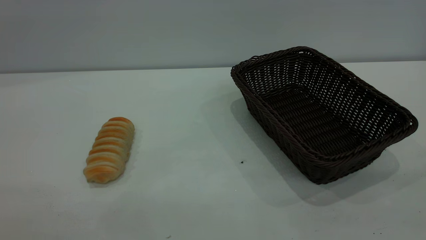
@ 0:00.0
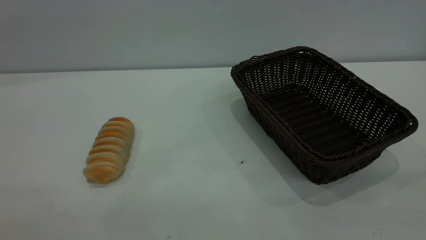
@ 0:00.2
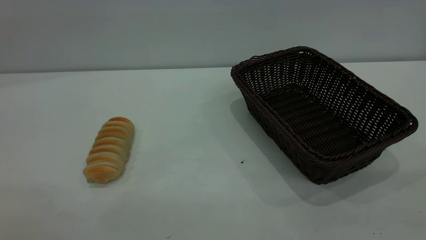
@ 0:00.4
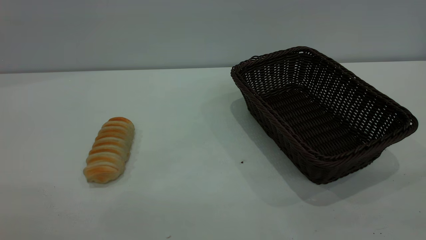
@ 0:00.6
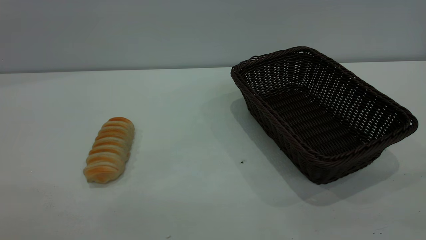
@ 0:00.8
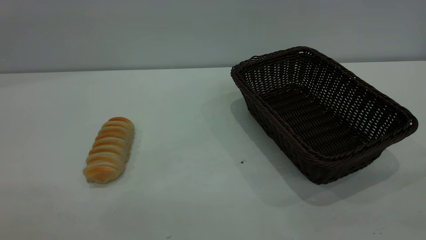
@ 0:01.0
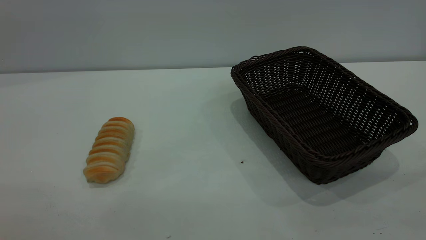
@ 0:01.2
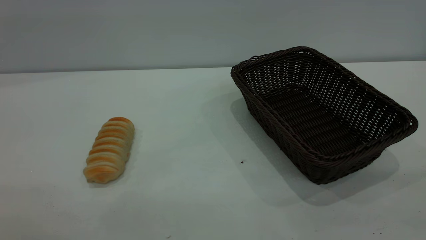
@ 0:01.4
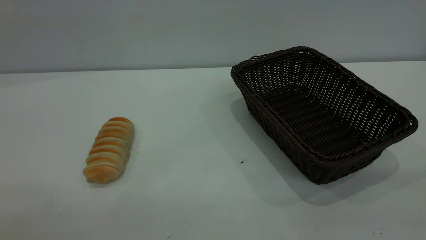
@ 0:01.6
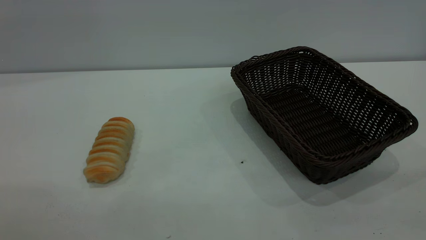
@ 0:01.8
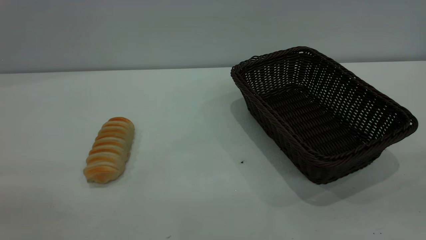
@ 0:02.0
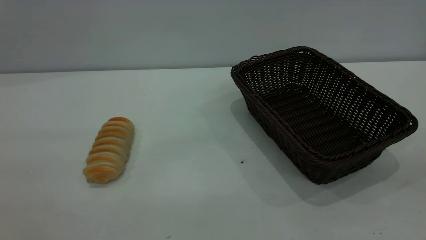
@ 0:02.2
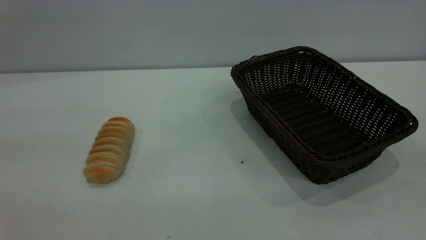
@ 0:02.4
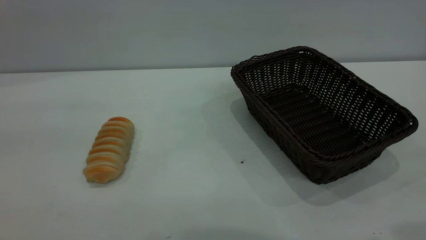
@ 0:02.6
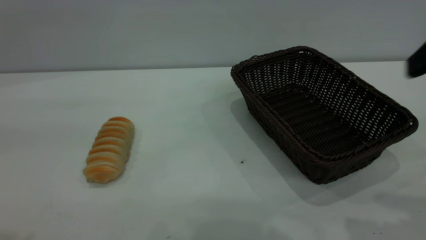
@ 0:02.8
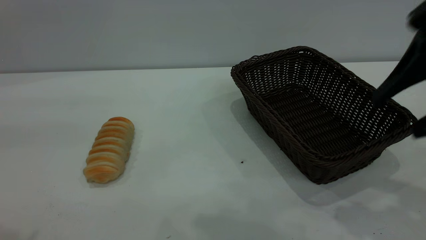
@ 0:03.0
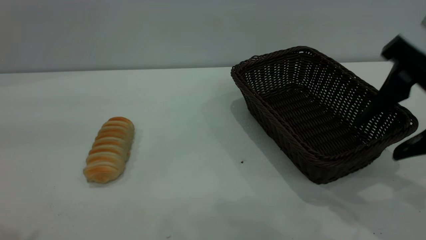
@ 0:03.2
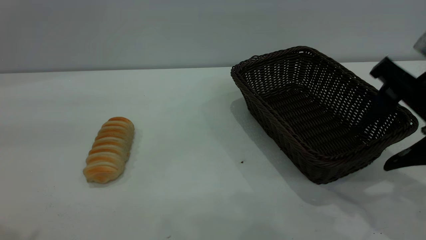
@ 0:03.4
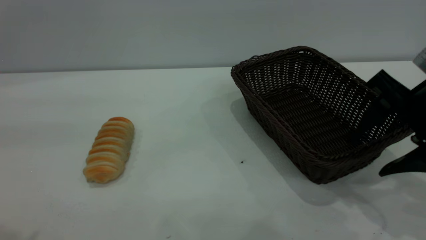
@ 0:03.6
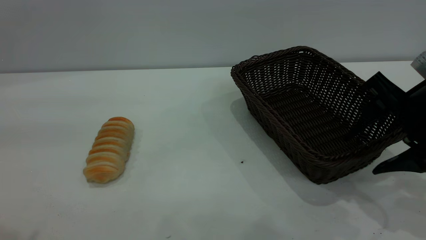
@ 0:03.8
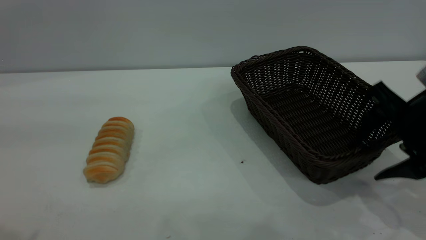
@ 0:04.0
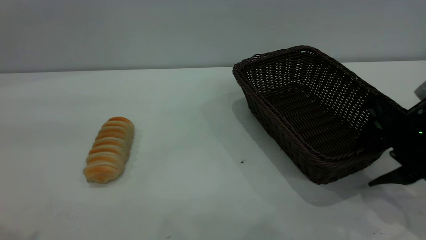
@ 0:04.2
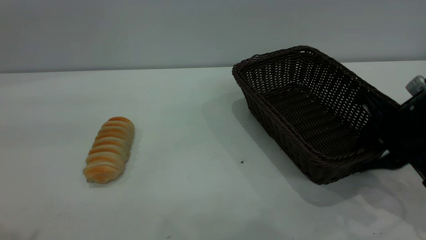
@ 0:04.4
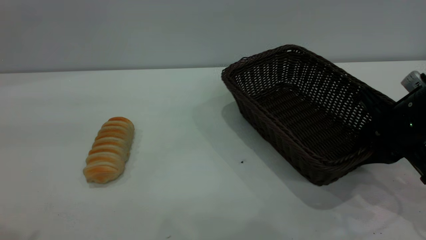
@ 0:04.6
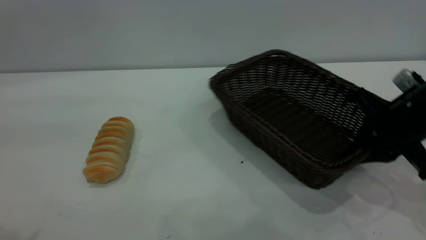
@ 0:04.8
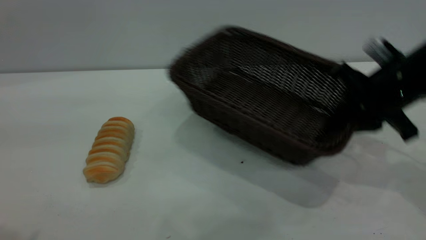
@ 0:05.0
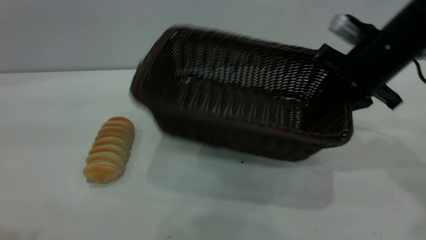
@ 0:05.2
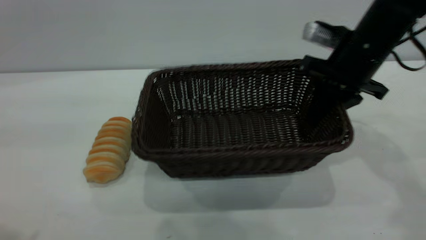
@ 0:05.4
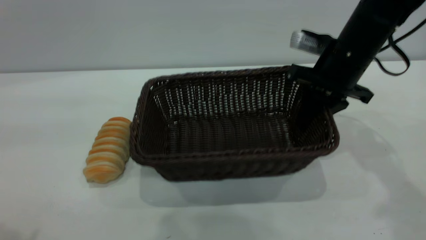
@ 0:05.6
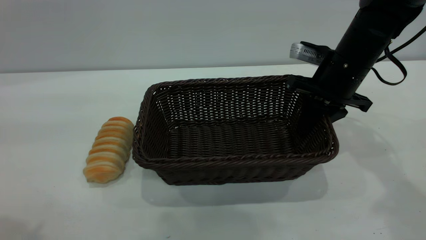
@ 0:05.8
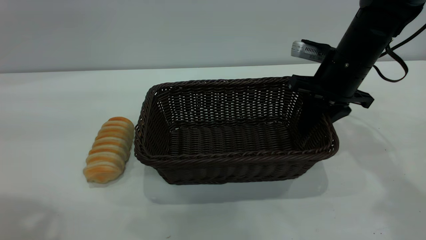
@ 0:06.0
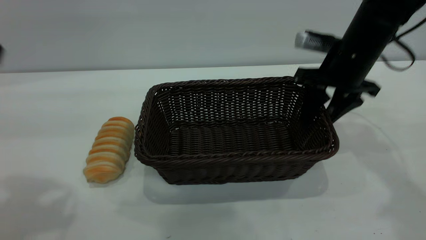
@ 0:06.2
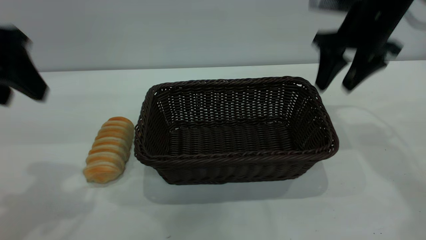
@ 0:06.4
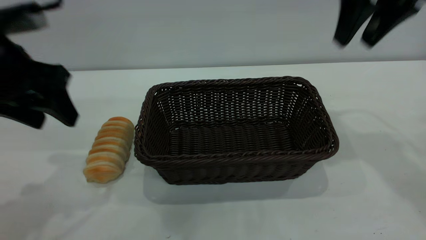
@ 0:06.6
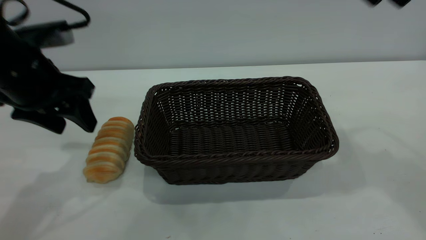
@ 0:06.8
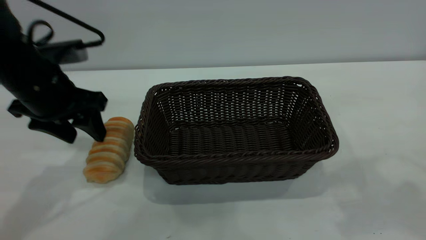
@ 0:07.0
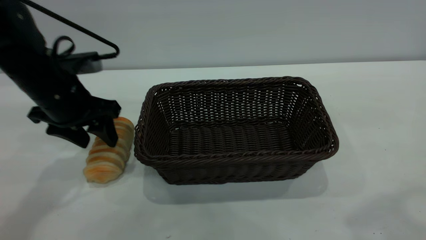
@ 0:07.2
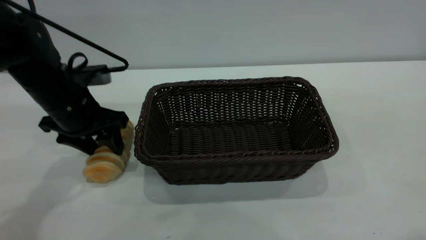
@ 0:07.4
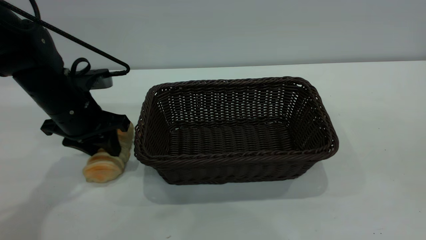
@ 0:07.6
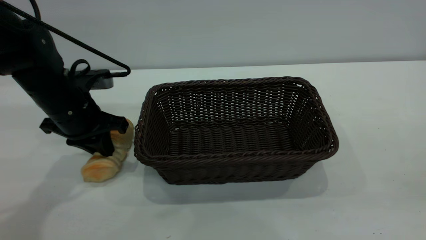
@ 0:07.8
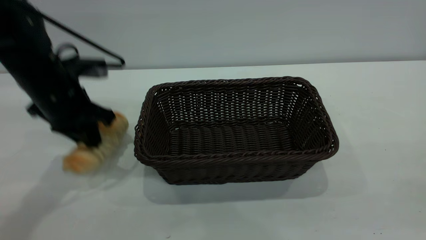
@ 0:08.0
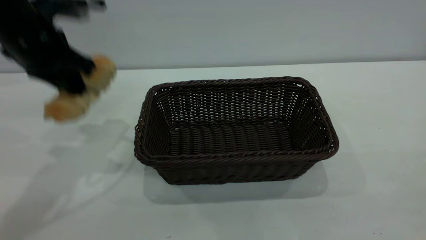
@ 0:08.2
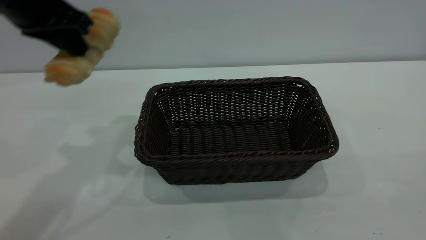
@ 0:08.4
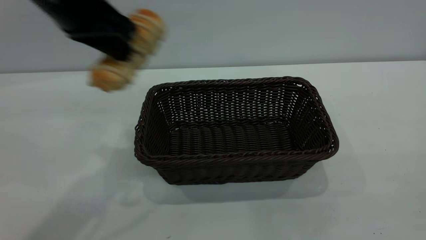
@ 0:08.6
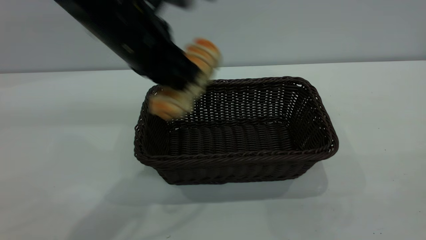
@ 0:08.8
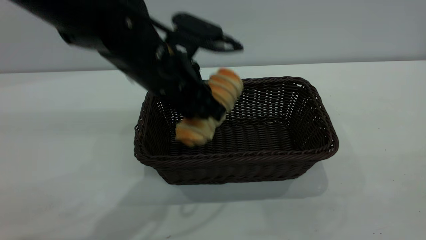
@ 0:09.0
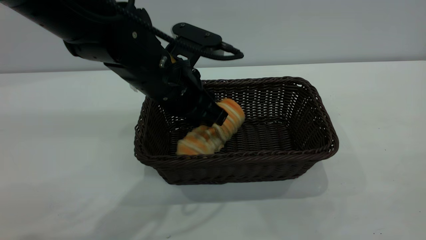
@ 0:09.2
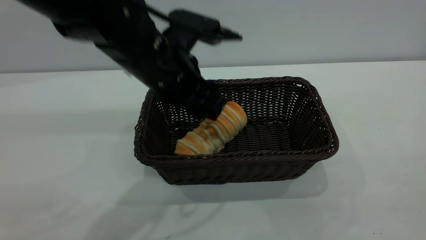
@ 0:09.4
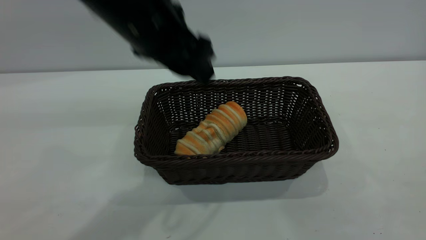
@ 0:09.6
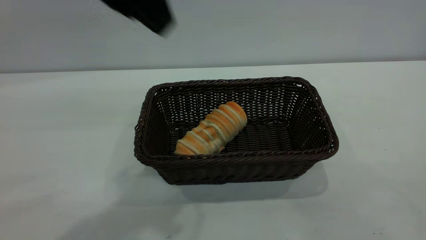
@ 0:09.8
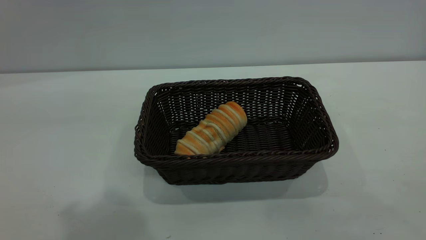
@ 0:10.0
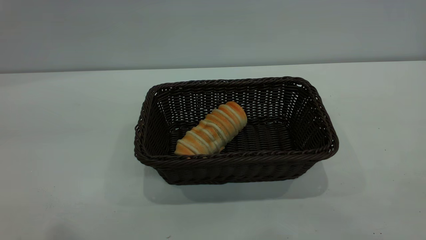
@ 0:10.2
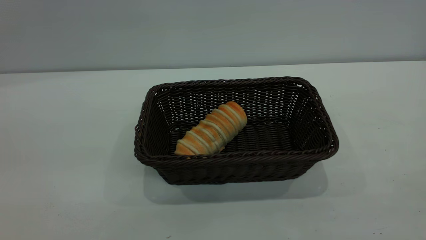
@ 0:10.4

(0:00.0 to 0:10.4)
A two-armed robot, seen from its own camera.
Task of the whole recording: One hand grasps the black basket and places it in the middle of the table, while the other hand picks up the long bread and puts it into the black basket.
Step, 0:00.0 - 0:06.4: Move the basket to the center of view.
Step, 0:08.4 - 0:09.6: place the bread into the basket.
0:00.0 - 0:01.4: Both grippers stay about where they are.
0:01.4 - 0:03.0: The right gripper shifts some 25 cm forward, and opens.
0:03.0 - 0:04.4: The right gripper moves downward and forward, some 15 cm, and closes up.
0:04.4 - 0:06.0: The left gripper shifts approximately 5 cm forward, while the right gripper heads forward and to the left, covering some 15 cm.
0:06.0 - 0:07.4: The right gripper travels backward and upward by some 40 cm, and opens its fingers, while the left gripper is displaced downward and forward by about 30 cm.
0:07.4 - 0:09.0: The left gripper is displaced to the right by approximately 15 cm, travels upward and back again, roughly 20 cm each way, and closes its fingers; the right gripper travels backward and downward by approximately 15 cm.
0:09.0 - 0:10.4: The left gripper heads upward, backward and to the left, covering about 35 cm, and opens its fingers.

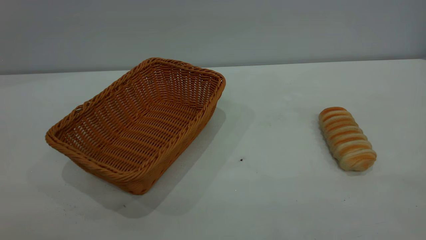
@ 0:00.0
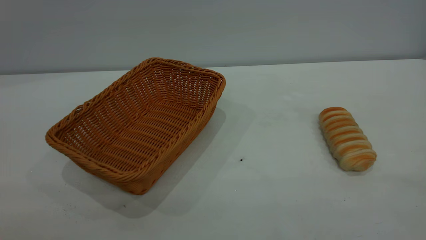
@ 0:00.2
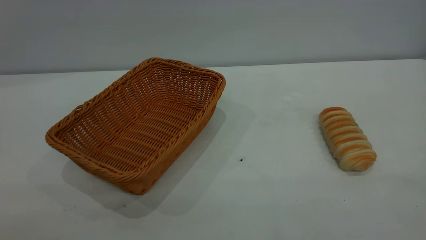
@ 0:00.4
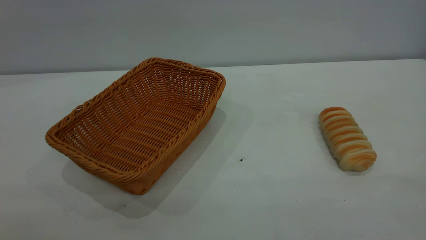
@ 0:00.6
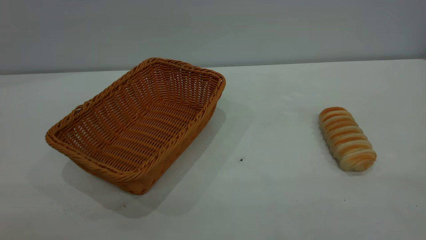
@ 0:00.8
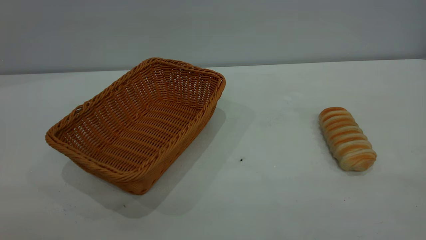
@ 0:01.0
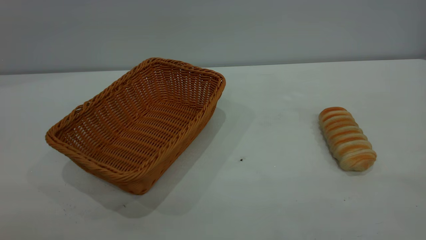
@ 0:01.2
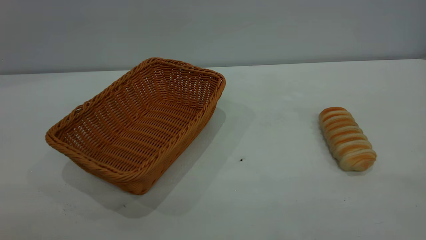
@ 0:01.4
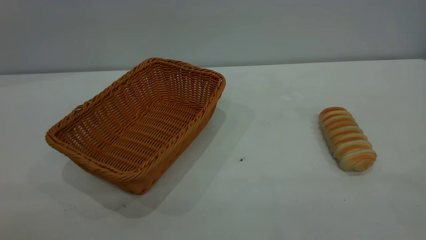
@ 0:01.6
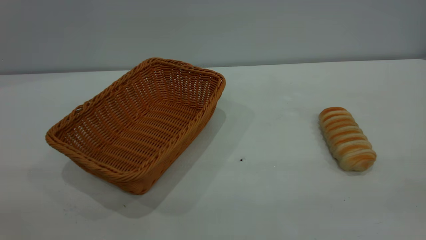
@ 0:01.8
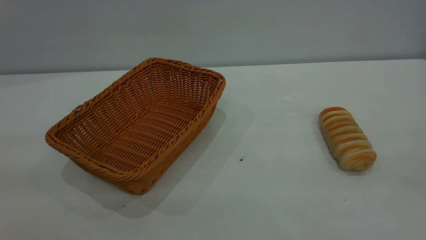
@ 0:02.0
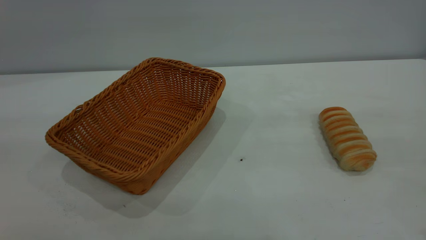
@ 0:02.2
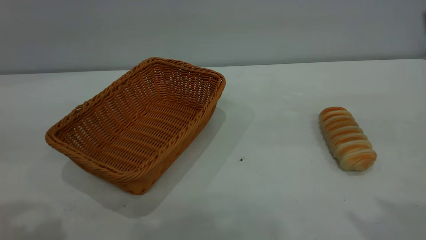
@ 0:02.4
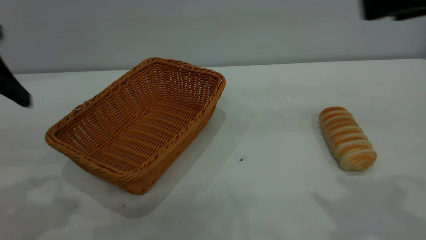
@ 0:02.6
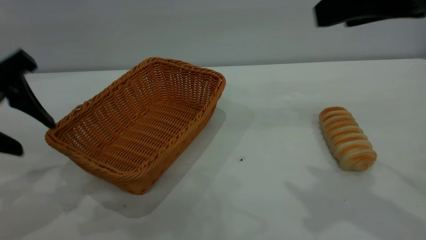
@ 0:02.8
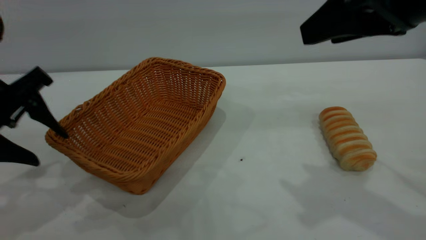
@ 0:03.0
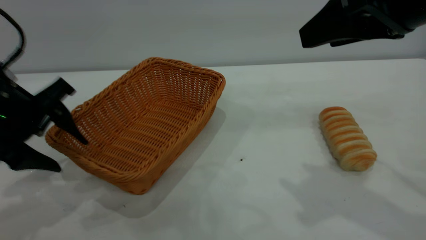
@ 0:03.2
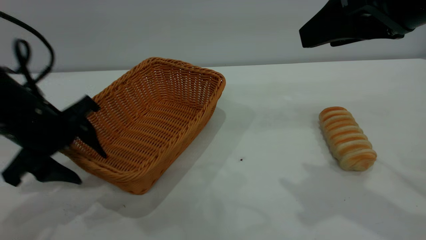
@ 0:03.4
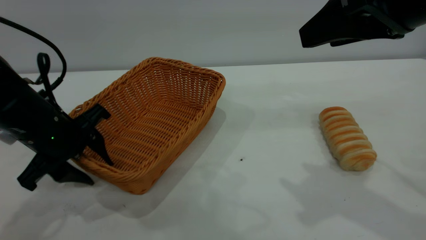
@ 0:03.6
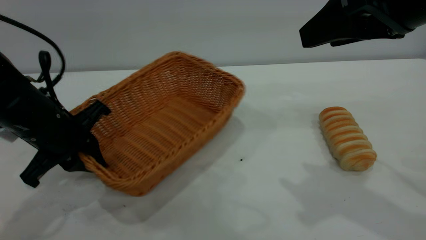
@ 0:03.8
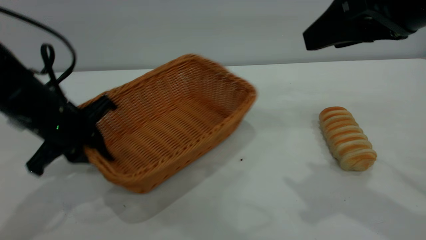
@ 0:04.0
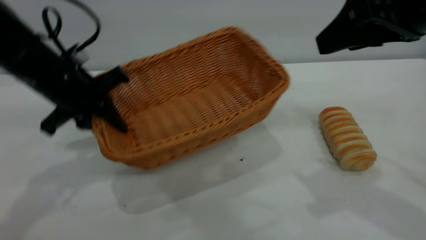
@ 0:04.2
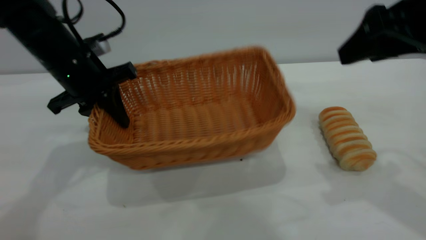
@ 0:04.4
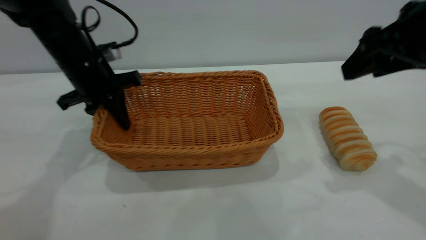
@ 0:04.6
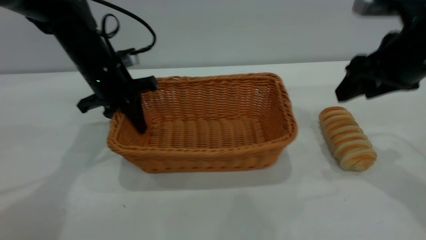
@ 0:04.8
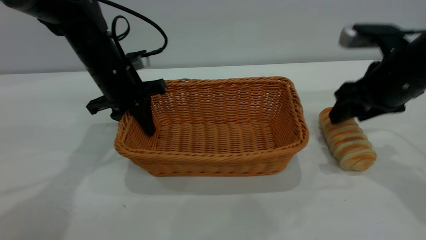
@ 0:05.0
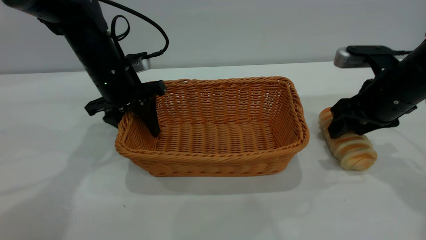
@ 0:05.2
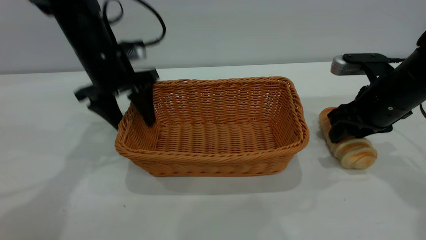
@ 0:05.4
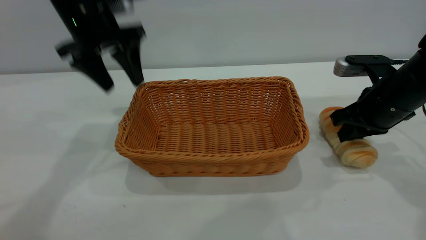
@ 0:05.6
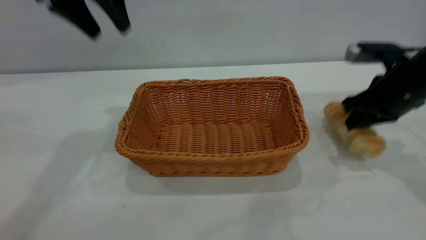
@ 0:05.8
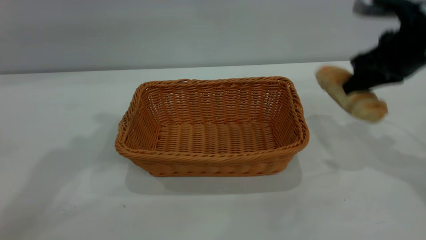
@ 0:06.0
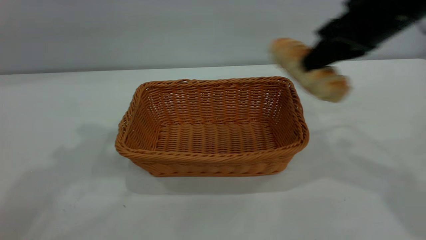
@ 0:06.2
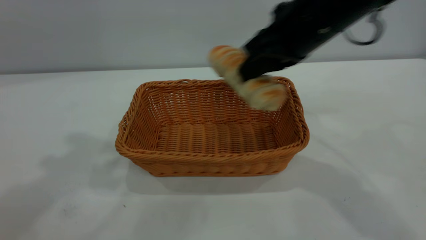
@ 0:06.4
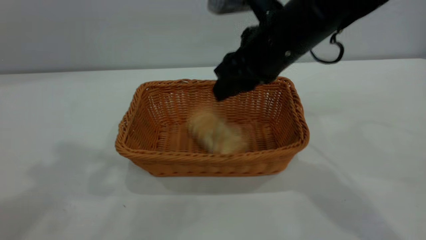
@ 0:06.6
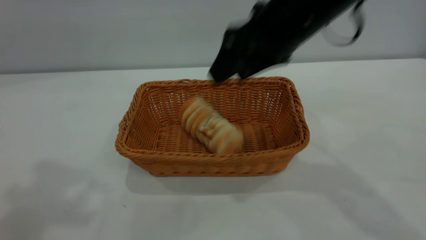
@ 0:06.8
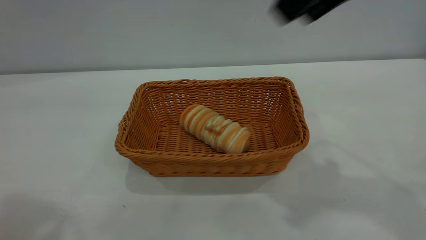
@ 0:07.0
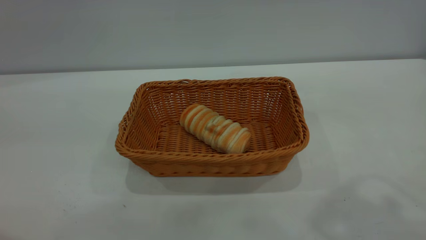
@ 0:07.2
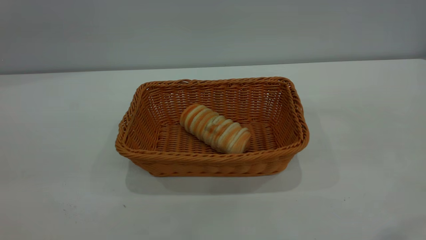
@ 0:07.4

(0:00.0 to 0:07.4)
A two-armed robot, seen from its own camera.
Task of the whole recording: One hand grasps the yellow basket and places it in the middle of the table, while the other hand picks up the long bread and puts it into the yellow basket.
Step, 0:00.0 - 0:05.4: Move the basket to the center of view.
Step, 0:06.0 - 0:06.8: place the bread into the basket.
0:00.0 - 0:01.4: The two grippers keep their place.
0:01.4 - 0:03.0: The right gripper is displaced forward by about 30 cm, while the left gripper goes approximately 35 cm forward and downward.
0:03.0 - 0:04.4: The right gripper shifts by some 5 cm. The left gripper is displaced forward and to the right by some 15 cm, and closes its fingers.
0:04.4 - 0:06.0: The left gripper heads upward, covering some 25 cm, and opens its fingers. Meanwhile the right gripper travels forward by roughly 5 cm, travels downward and back again, roughly 15 cm each way, and closes up.
0:06.0 - 0:07.4: The left gripper goes about 30 cm backward. Meanwhile the right gripper is displaced backward and upward by about 30 cm, and opens.
